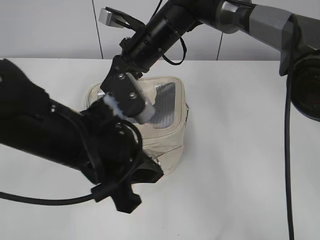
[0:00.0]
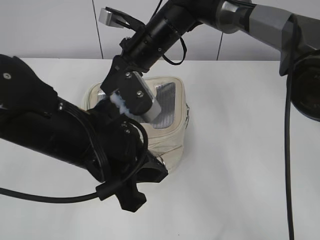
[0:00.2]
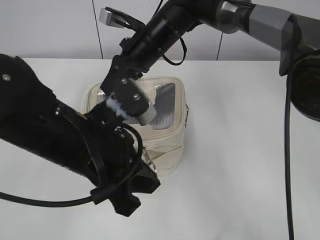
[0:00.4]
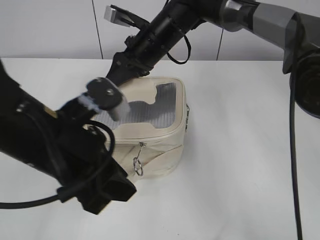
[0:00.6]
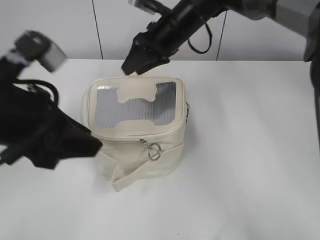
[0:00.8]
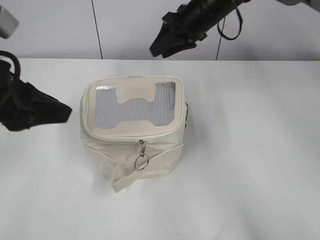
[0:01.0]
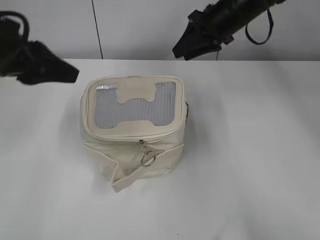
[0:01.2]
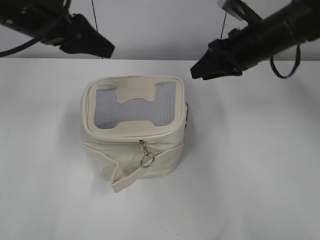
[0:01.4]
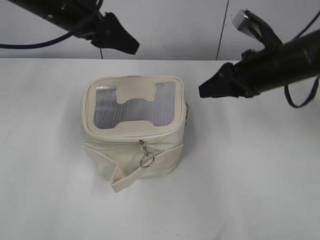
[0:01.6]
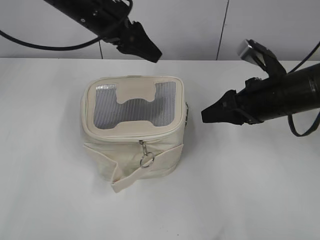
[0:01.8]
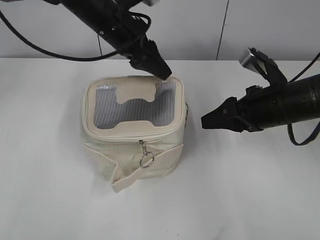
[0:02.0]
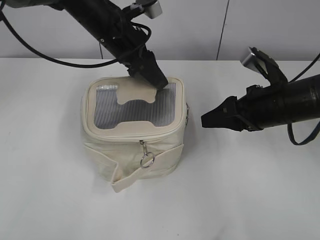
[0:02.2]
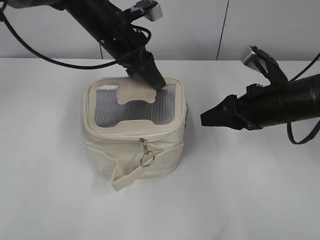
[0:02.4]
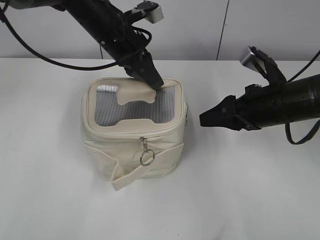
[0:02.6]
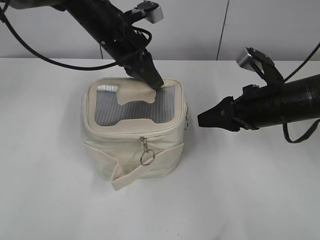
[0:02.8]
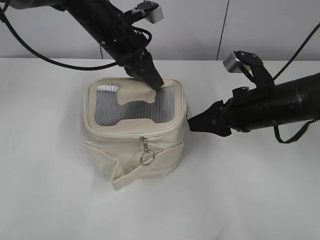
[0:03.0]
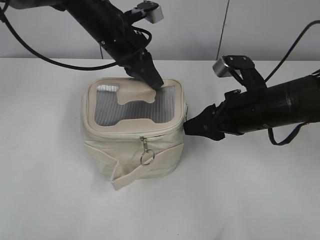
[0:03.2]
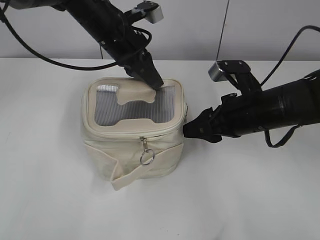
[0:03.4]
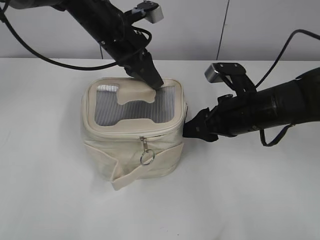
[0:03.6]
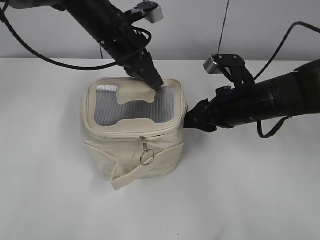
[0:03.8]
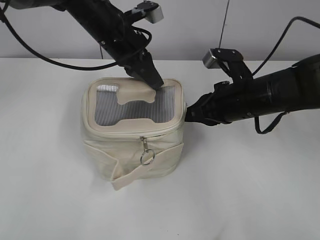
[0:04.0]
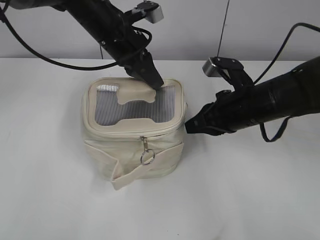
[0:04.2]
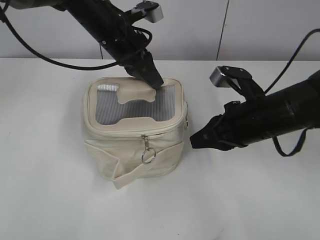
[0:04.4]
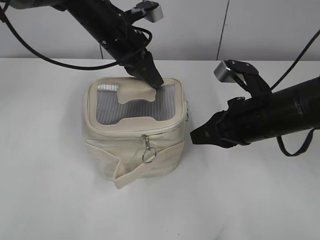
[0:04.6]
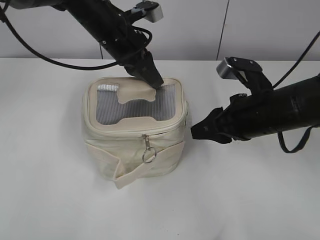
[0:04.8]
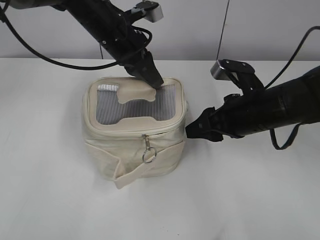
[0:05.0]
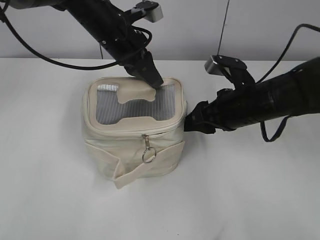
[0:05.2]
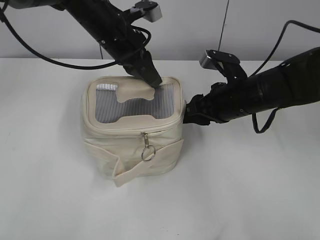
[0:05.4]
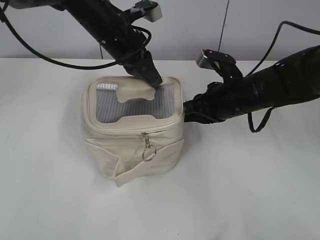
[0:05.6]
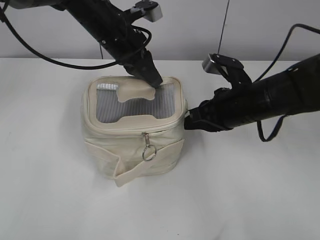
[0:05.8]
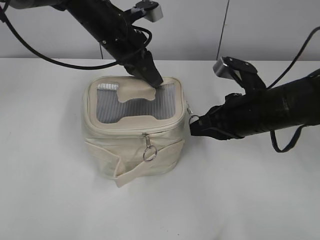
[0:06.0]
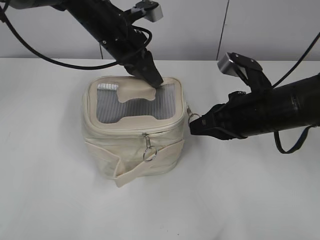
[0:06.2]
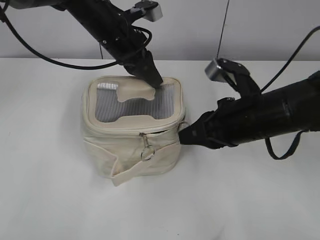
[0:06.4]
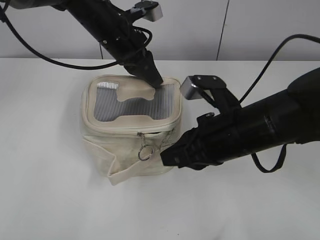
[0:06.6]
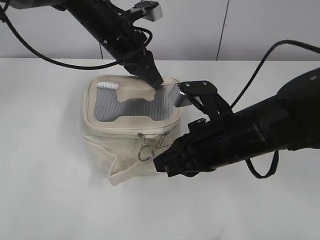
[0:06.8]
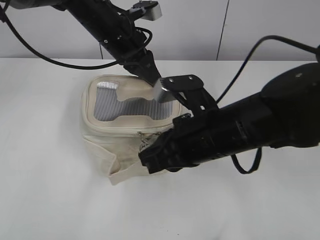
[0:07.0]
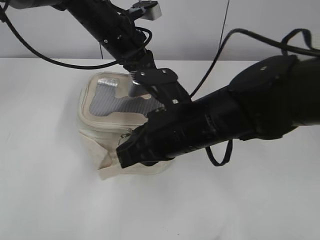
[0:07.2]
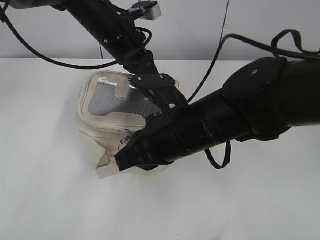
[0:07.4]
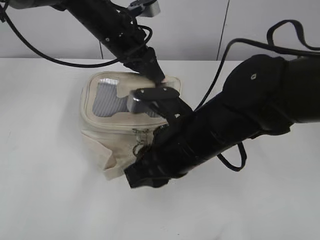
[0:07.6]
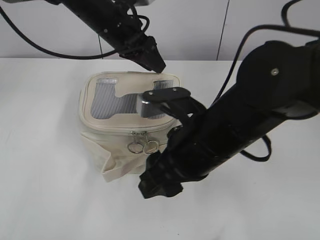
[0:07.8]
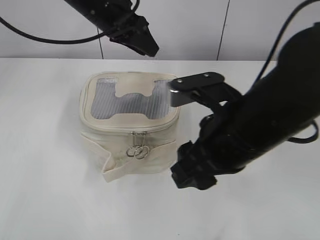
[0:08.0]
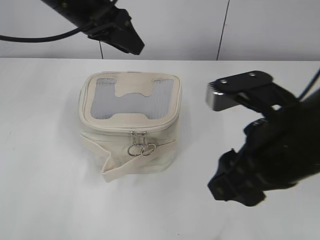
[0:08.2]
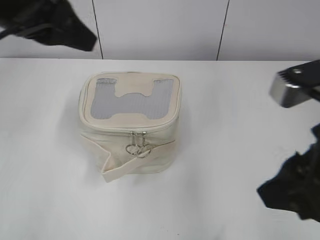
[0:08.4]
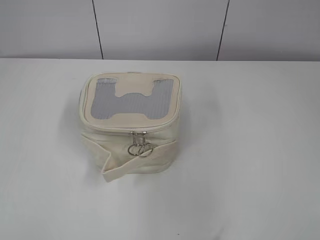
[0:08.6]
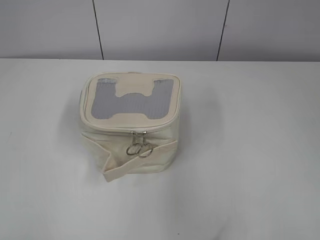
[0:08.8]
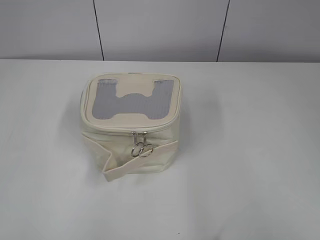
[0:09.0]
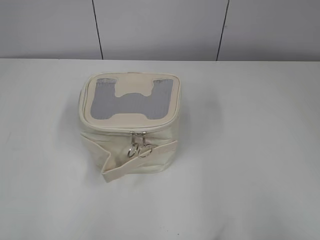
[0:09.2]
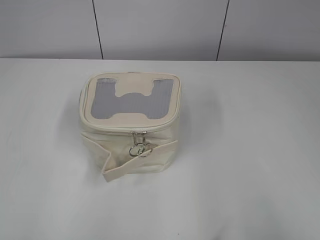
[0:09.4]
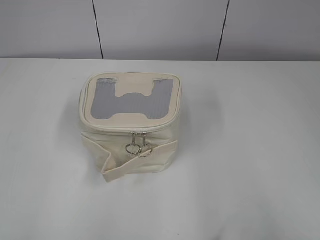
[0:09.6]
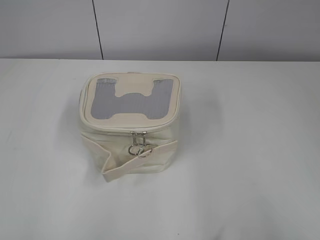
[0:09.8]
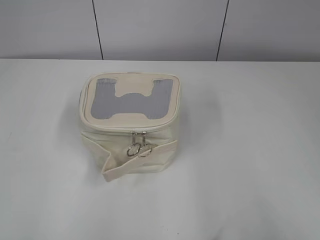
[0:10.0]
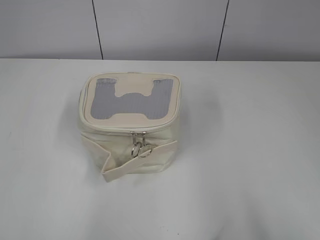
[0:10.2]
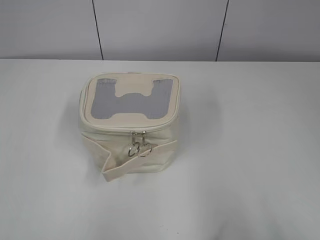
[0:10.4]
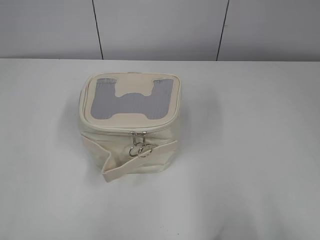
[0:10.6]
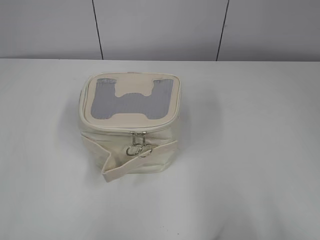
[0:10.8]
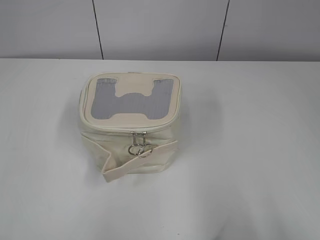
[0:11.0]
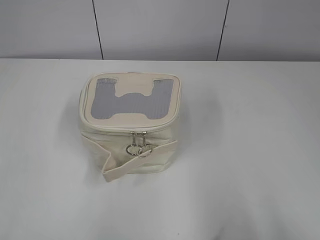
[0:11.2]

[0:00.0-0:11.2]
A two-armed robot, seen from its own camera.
Step, 0:01.0 to 0:07.4: Zip up the bag with your right hand.
Step, 0:07.6 to 0:07.8: Hold the bag with your left hand.
0:00.0 to 0:01.6: The left gripper moves forward and upward, approximately 20 cm, and opens up; the right gripper travels to the right by some 20 cm, and opens.
0:01.6 to 0:03.2: The left gripper moves to the right and downward, roughly 10 cm, and closes up. Meanwhile the right gripper heads backward, covering some 5 cm.
0:03.2 to 0:04.8: The right gripper closes up.
0:04.8 to 0:06.4: The right gripper opens and closes again.
0:06.4 to 0:08.0: The left gripper opens its fingers, while the right gripper goes roughly 10 cm to the left and backward, and opens its fingers.
0:08.0 to 0:09.6: The left gripper is displaced backward and to the left by some 50 cm; the right gripper travels to the right and backward by approximately 30 cm.

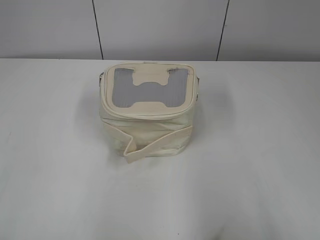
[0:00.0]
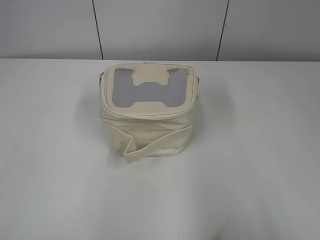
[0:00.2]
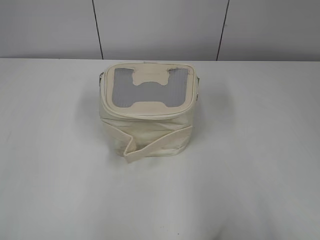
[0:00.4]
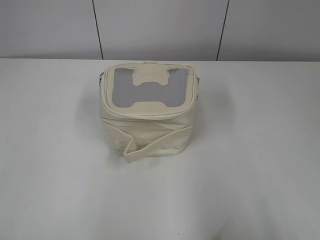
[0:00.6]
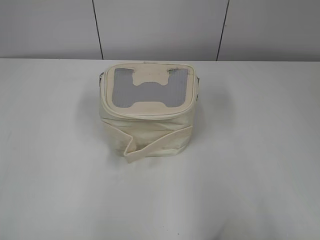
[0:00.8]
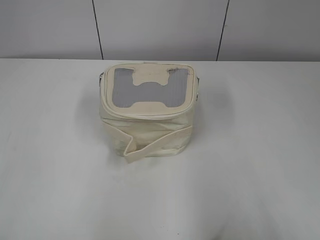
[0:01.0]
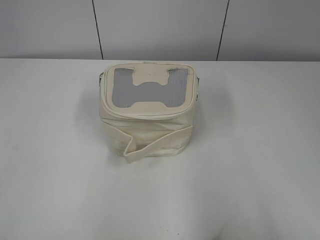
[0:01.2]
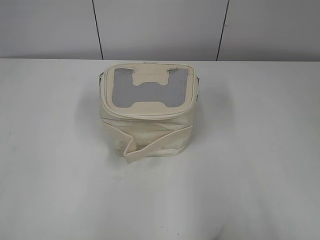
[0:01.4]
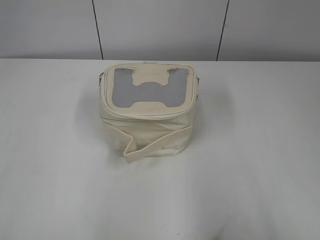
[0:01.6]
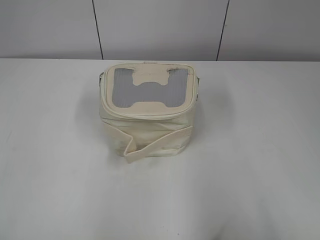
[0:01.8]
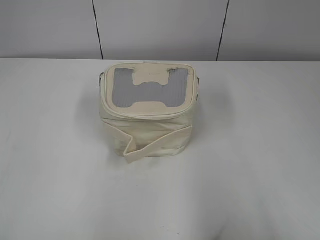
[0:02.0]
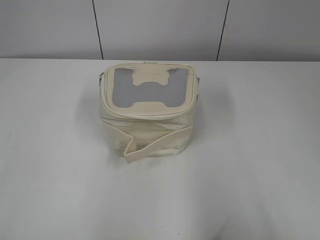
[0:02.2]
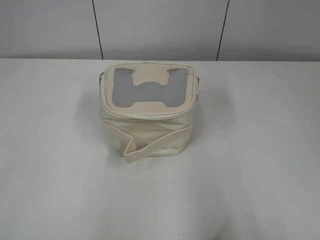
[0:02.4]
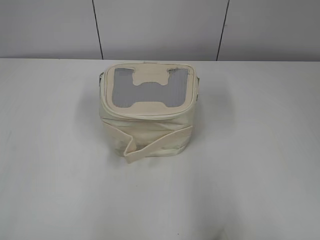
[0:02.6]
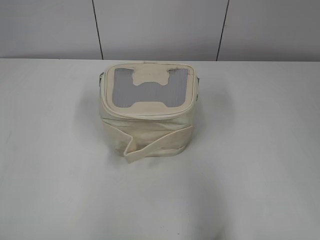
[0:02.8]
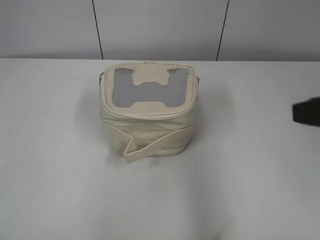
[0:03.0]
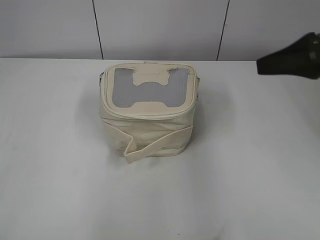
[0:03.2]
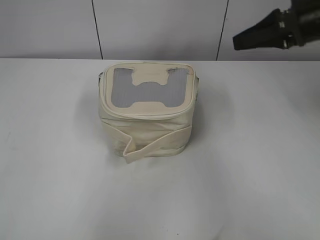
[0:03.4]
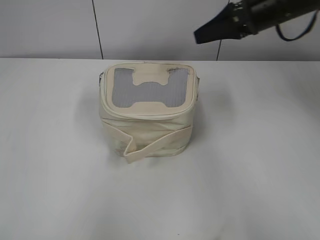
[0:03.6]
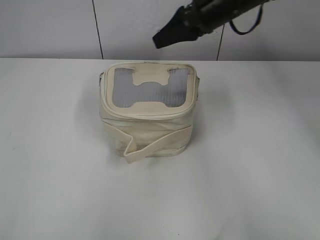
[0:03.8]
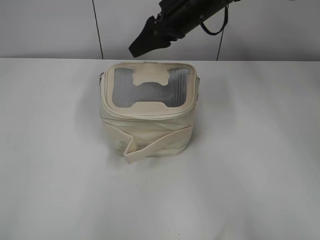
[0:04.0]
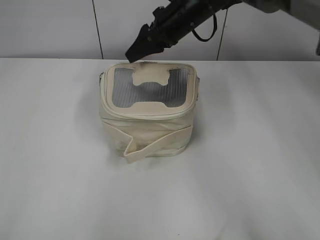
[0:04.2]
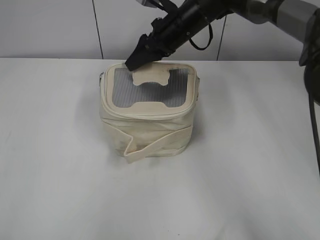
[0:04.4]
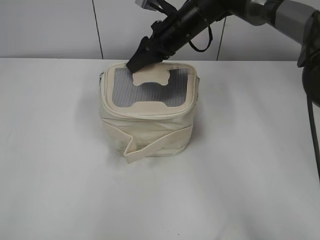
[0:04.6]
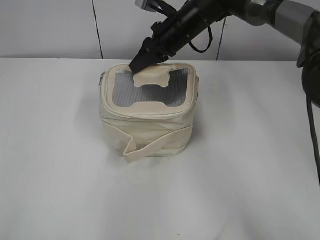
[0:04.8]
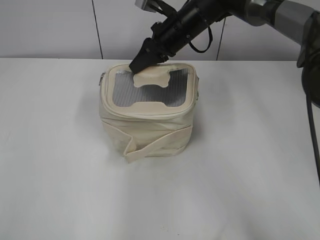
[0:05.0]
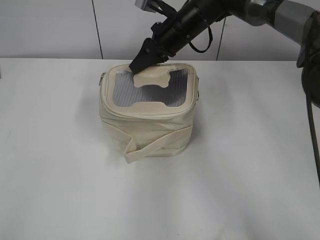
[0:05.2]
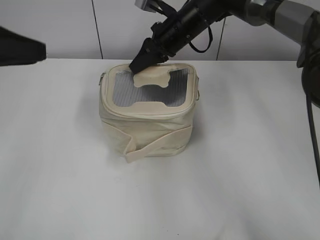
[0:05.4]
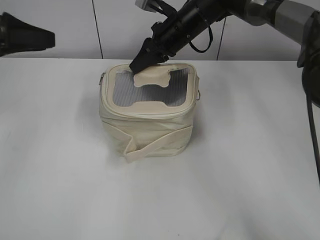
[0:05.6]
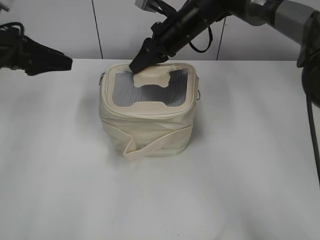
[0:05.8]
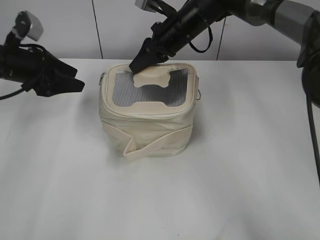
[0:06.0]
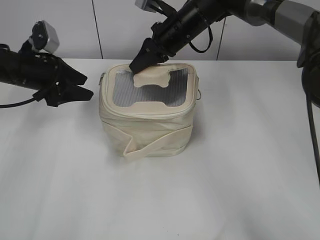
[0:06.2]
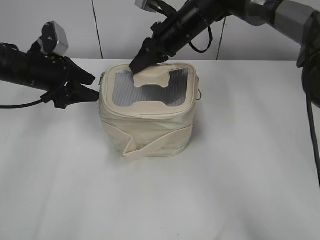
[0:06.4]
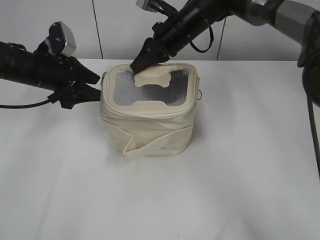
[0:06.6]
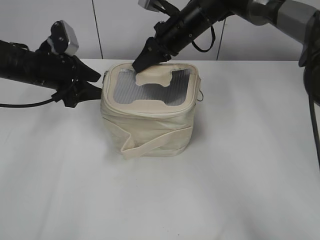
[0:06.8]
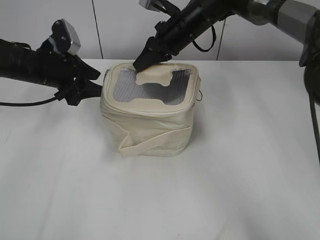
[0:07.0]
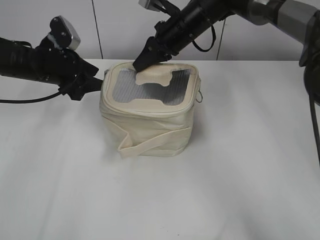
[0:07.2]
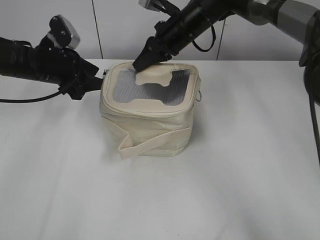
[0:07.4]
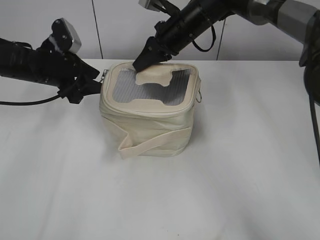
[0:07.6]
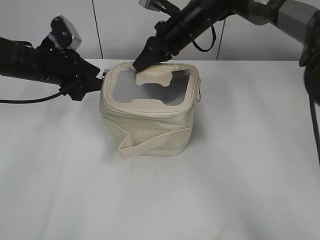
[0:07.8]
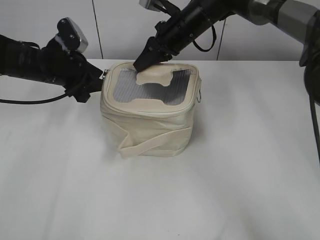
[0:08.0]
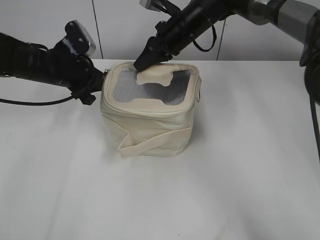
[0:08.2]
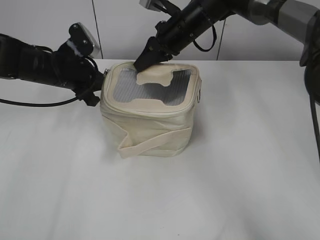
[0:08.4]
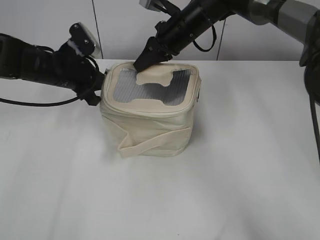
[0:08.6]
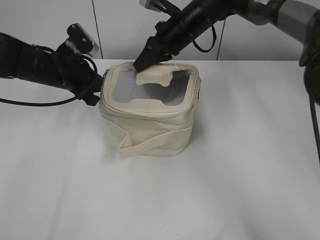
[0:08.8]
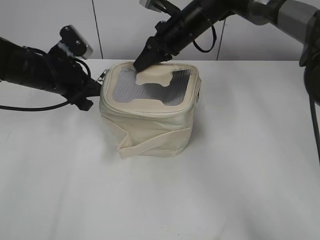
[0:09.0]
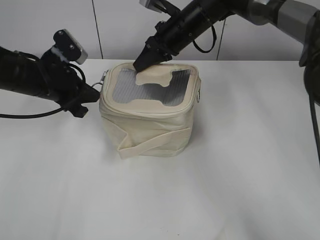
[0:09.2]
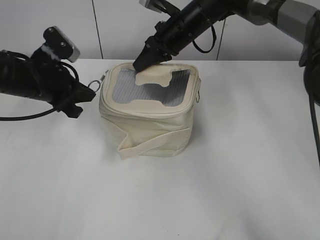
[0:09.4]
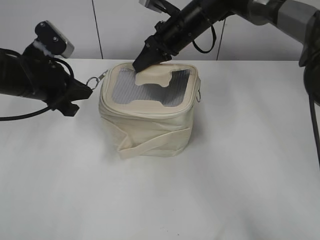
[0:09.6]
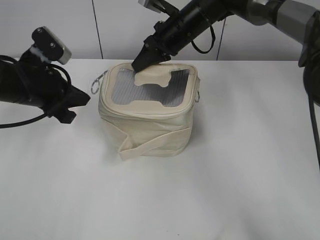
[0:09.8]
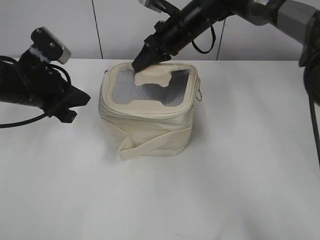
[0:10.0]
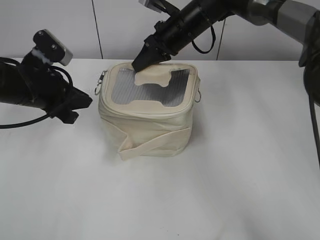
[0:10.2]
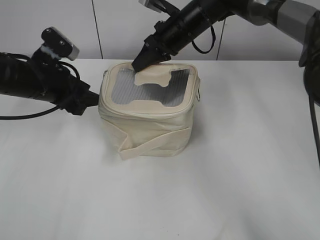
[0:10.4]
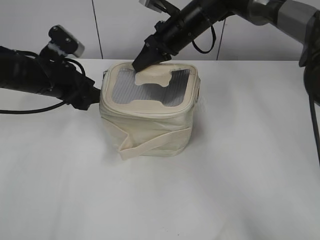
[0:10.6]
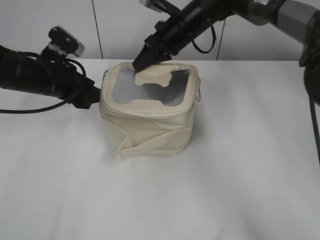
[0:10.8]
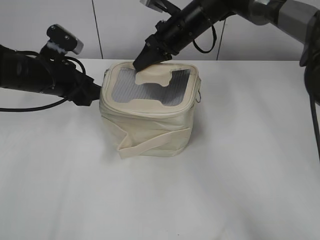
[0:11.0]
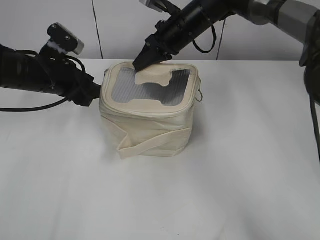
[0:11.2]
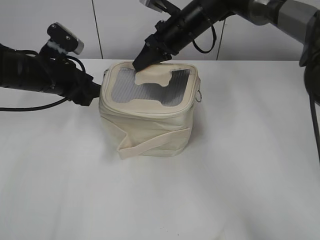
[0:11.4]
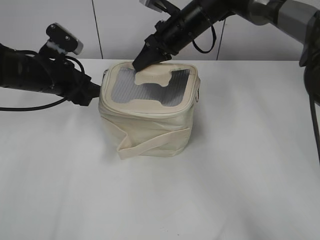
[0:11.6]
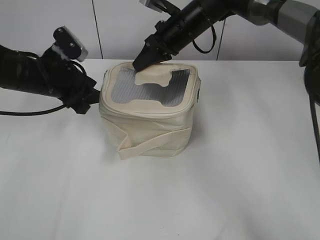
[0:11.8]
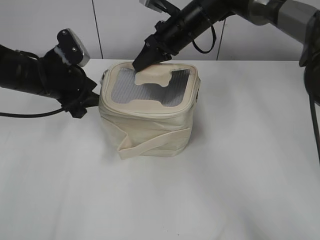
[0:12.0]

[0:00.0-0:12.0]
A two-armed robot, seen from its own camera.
0:01.6 to 0:03.0: The right gripper is displaced forward by roughly 15 cm.
0:03.0 to 0:04.4: The right gripper shifts roughly 40 cm forward and to the left.
0:04.4 to 0:06.0: The right gripper closes its fingers, while the left gripper is displaced forward by some 40 cm, and opens up.
0:06.0 to 0:07.6: The left gripper travels to the right by some 5 cm.
0:07.6 to 0:09.0: The left gripper closes its fingers.
0:09.0 to 0:10.4: The left gripper opens.
0:10.4 to 0:12.0: The grippers make only small movements.
